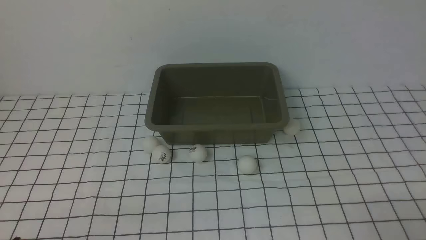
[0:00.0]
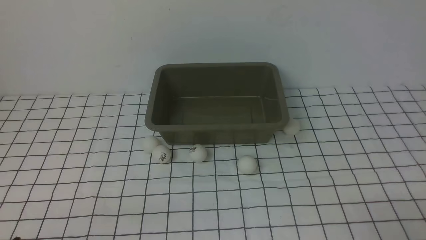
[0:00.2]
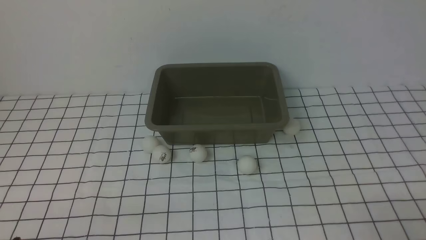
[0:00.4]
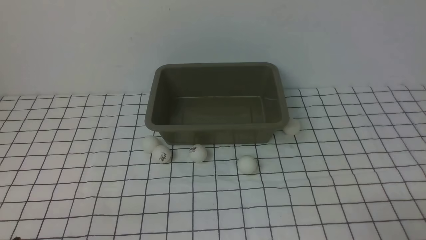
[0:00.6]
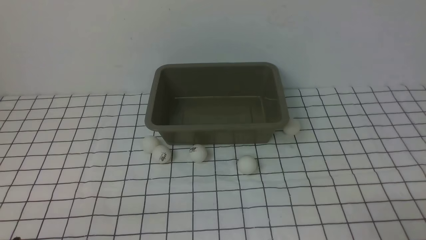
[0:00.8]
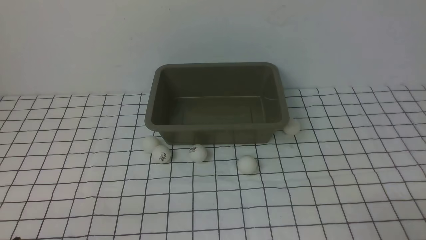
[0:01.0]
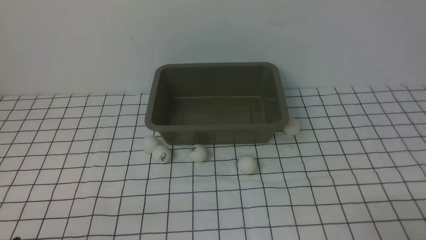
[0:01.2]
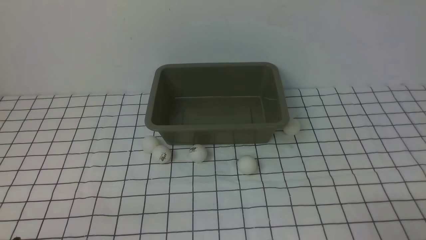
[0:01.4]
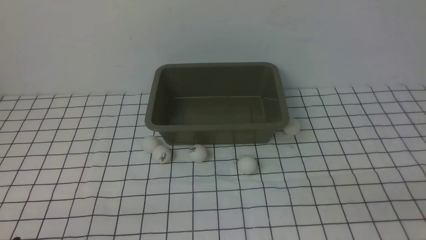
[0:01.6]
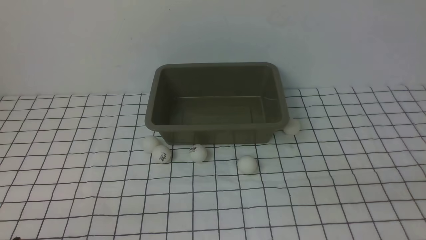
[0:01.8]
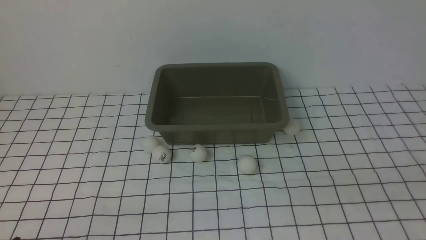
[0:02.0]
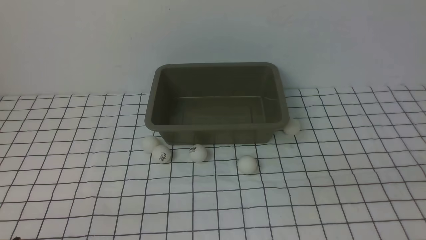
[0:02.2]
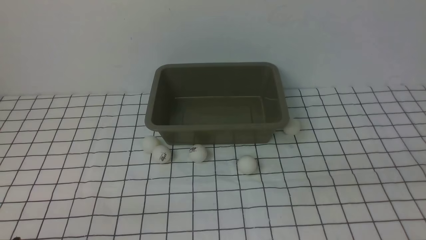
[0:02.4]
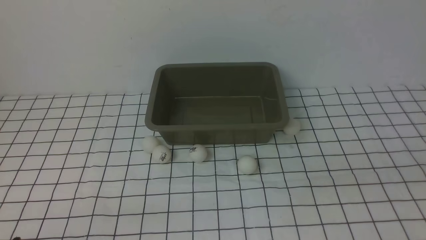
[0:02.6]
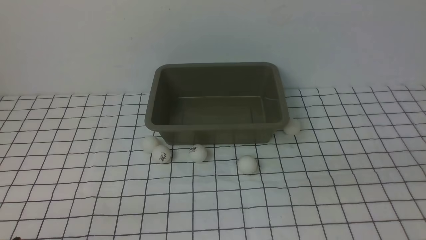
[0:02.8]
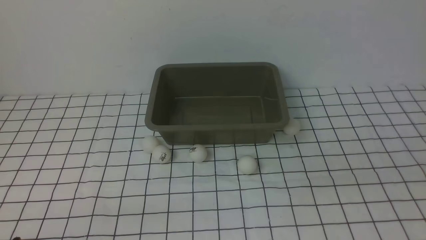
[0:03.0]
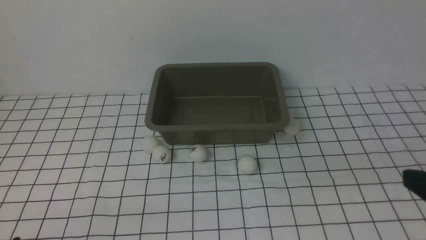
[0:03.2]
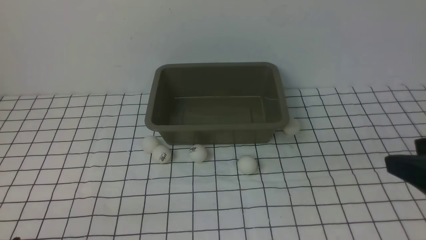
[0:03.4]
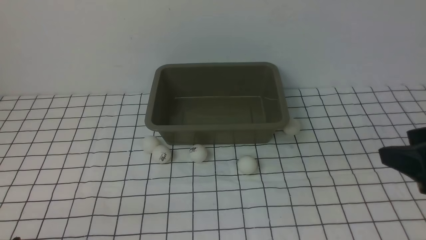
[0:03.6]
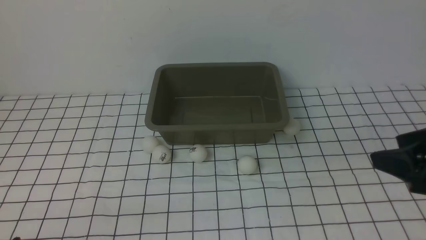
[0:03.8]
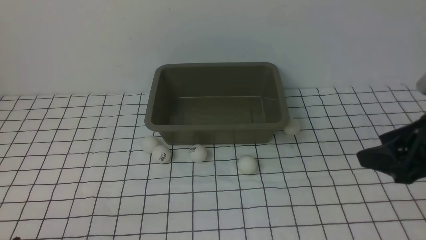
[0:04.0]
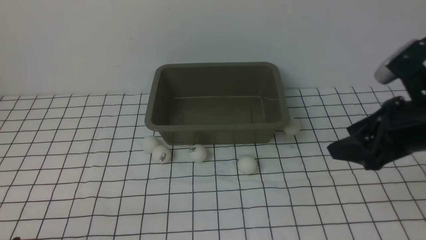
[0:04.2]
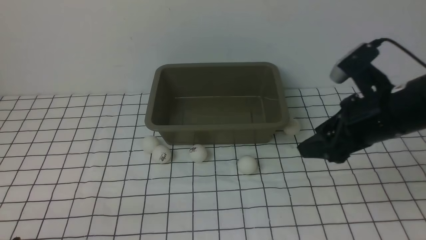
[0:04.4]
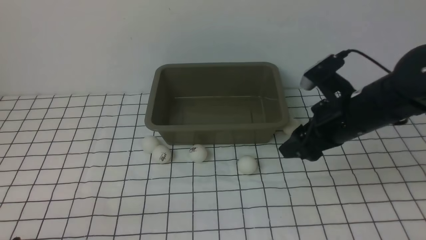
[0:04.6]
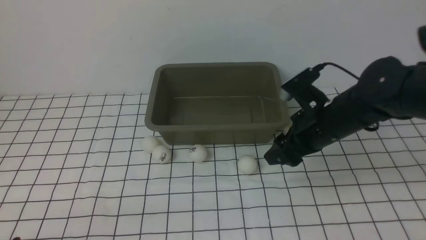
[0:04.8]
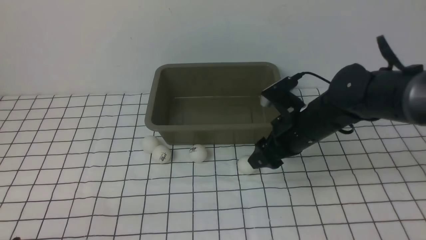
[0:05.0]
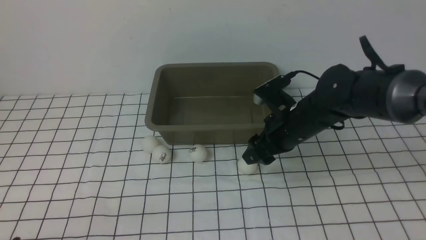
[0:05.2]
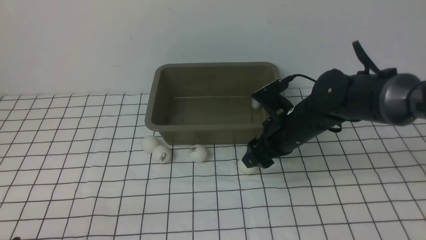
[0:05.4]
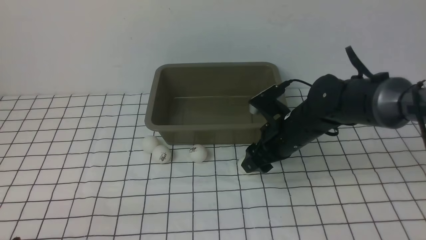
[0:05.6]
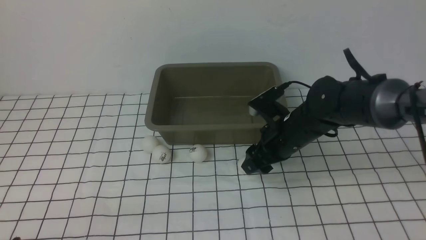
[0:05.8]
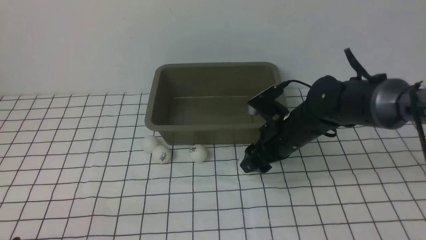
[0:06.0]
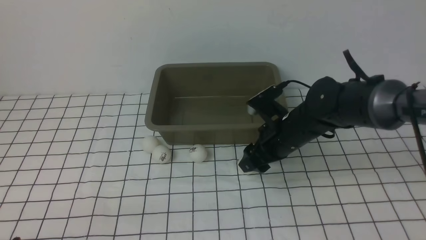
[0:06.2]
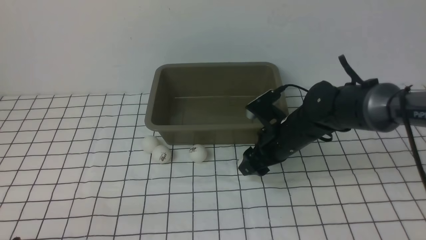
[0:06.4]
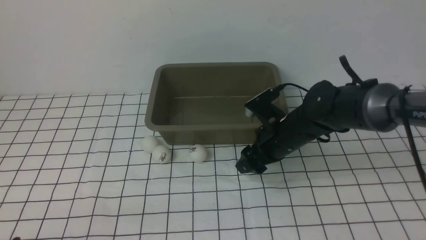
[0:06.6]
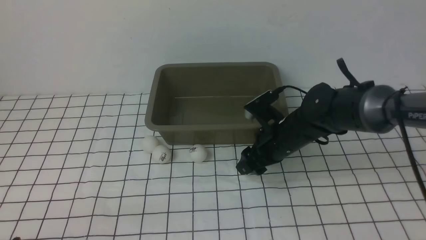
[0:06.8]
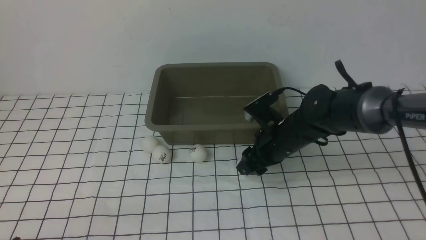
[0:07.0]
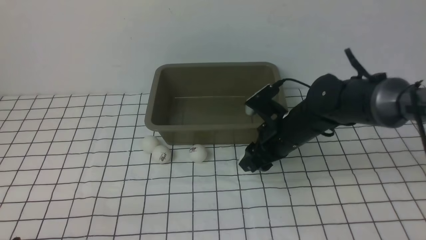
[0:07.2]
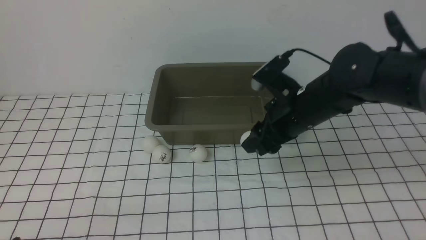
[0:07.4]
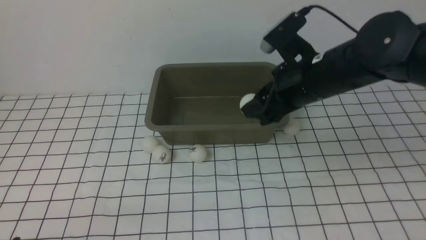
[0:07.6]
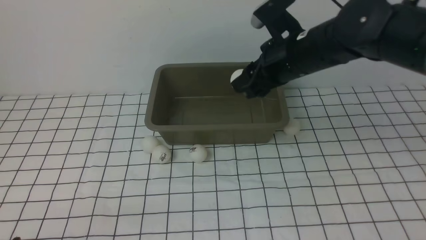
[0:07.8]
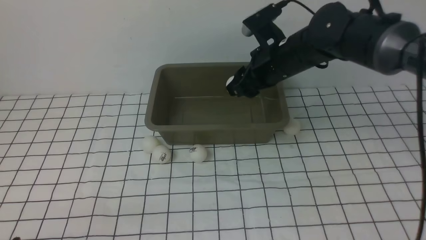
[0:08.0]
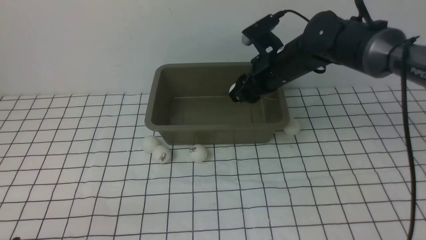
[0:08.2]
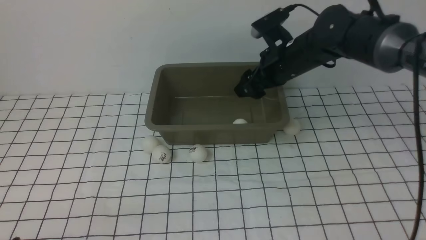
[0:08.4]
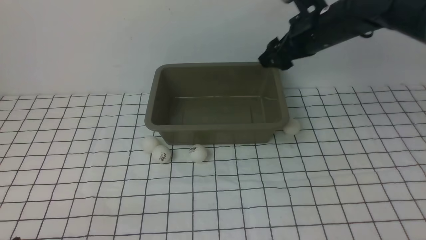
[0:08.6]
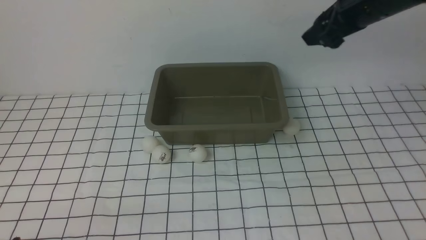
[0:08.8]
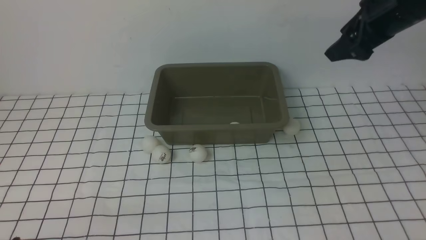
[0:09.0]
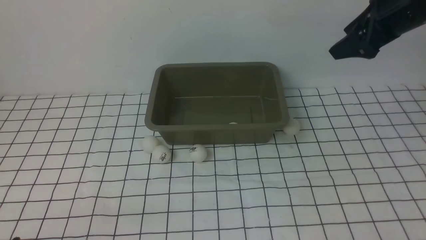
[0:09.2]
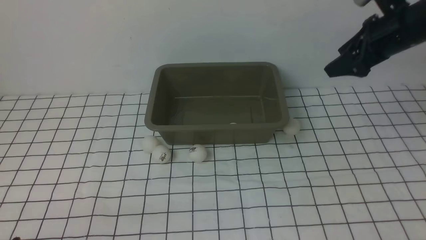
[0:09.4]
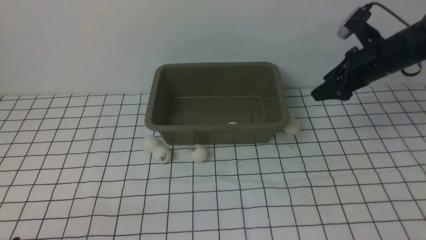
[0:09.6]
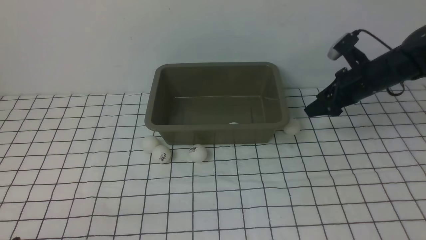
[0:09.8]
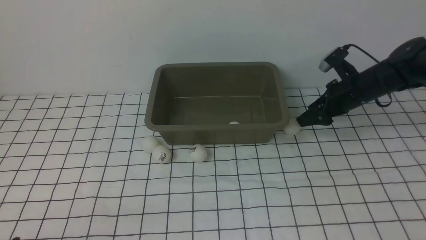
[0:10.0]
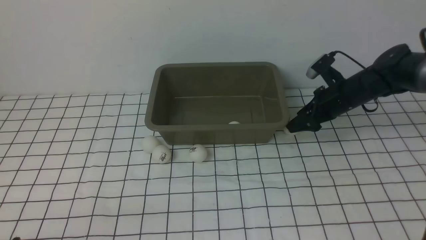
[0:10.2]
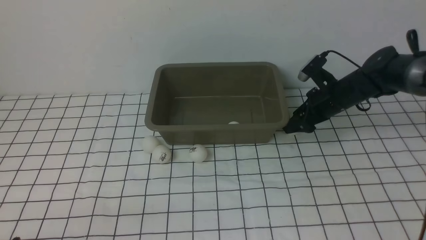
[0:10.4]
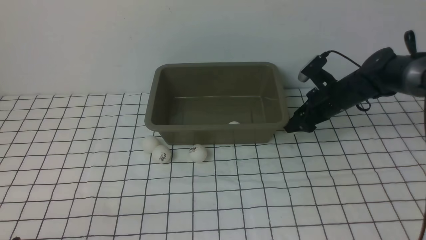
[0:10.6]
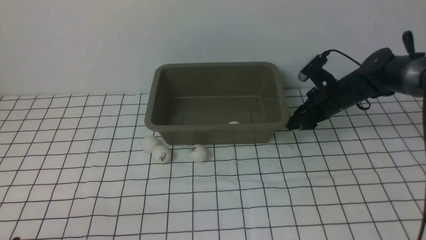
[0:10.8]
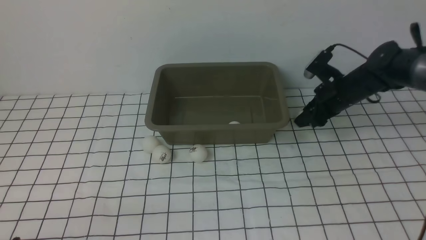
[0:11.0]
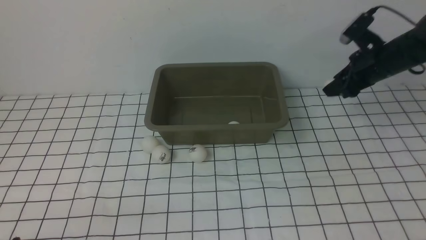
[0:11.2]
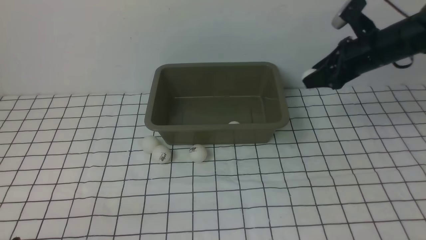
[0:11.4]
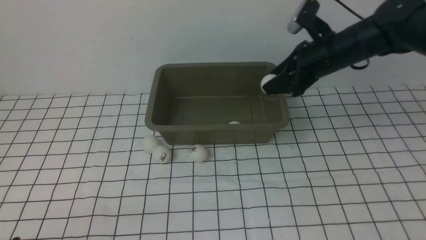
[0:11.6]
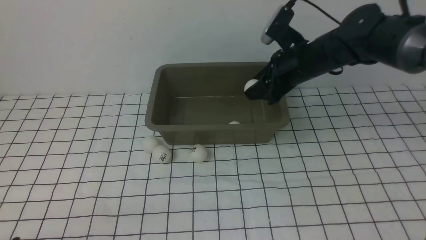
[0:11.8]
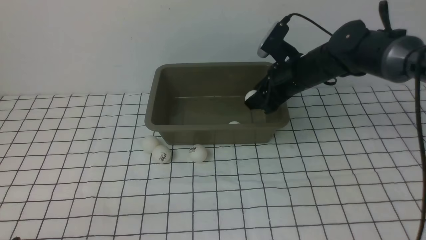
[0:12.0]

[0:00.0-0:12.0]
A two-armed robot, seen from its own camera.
Step, 0:00.0 to 0:07.2: use the right arm to clamp the table tennis ball closest to it.
Step, 0:07.4 to 0:08.4: use the right arm to put the table tennis ball into the box.
Step, 0:08.6 to 0:11.0: use the right arm to clamp the table tennis ball closest to it.
0:03.0 to 0:04.4: The right gripper is displaced forward by roughly 25 cm.
0:04.4 to 0:06.0: The right gripper heads downward, to the left and forward, covering about 15 cm.
0:06.0 to 0:07.6: The right gripper heads upward, covering some 15 cm, and closes up.
0:07.6 to 0:09.0: The right gripper is displaced to the right, upward and forward by some 15 cm, and opens up.
0:09.0 to 0:10.4: The right gripper goes approximately 20 cm downward.
0:10.4 to 0:12.0: The right gripper shifts about 10 cm upward, and closes, then opens again.

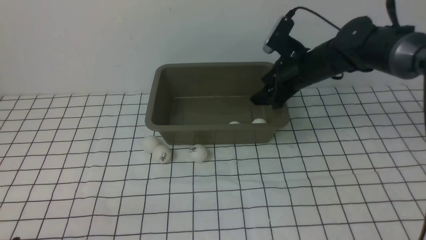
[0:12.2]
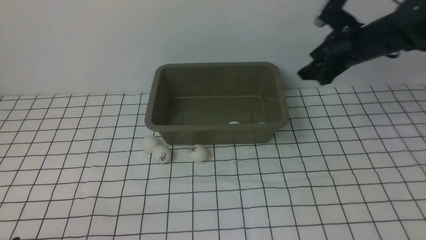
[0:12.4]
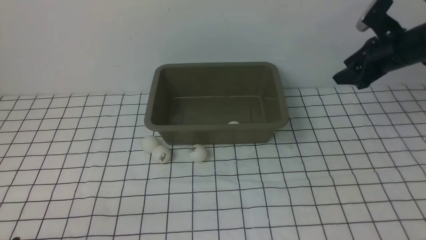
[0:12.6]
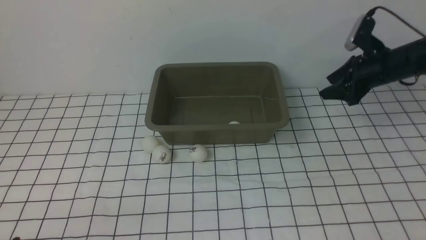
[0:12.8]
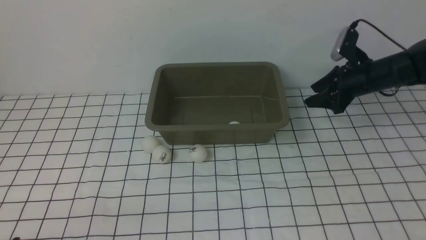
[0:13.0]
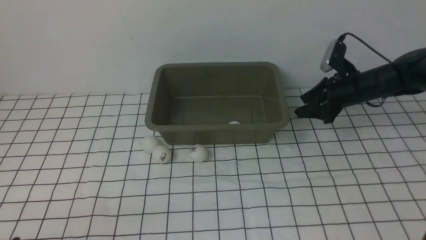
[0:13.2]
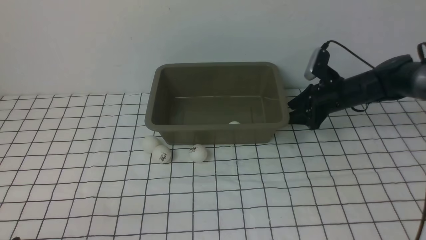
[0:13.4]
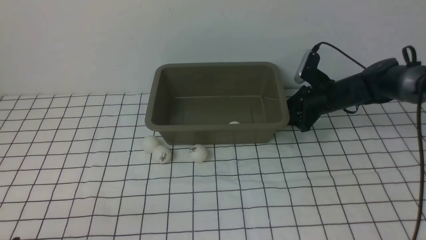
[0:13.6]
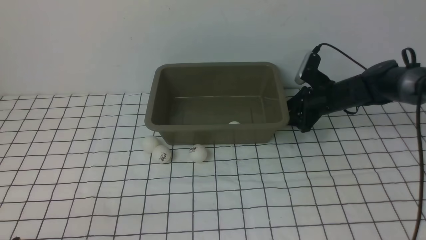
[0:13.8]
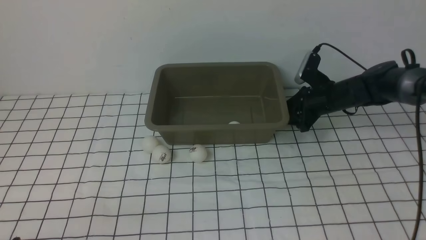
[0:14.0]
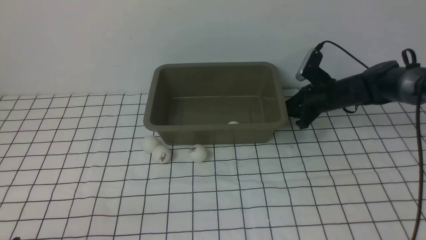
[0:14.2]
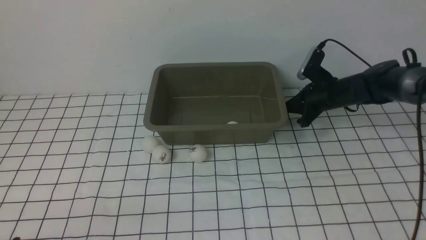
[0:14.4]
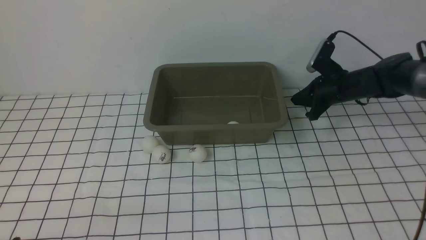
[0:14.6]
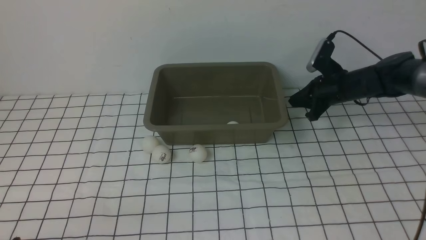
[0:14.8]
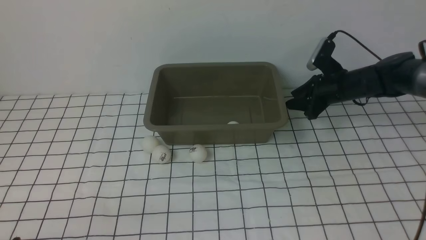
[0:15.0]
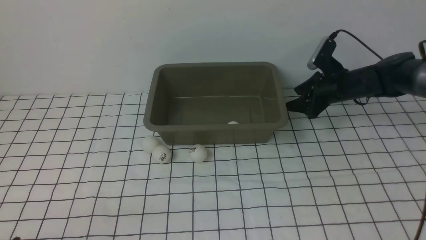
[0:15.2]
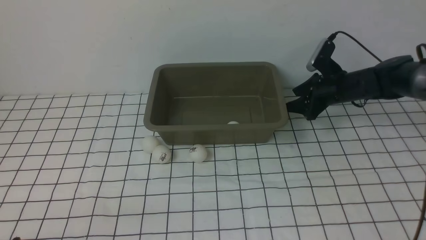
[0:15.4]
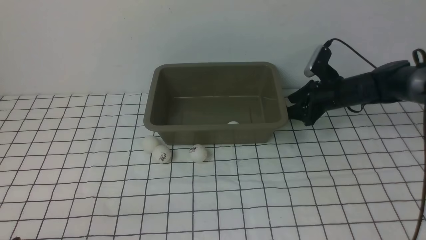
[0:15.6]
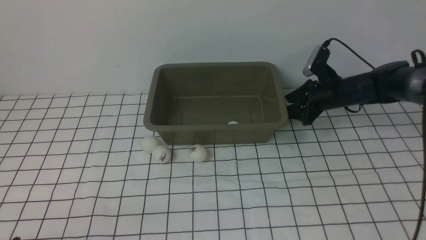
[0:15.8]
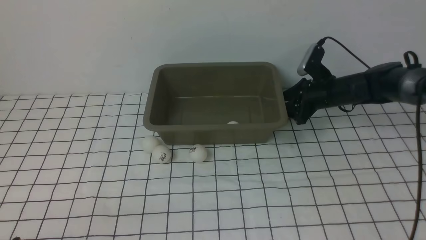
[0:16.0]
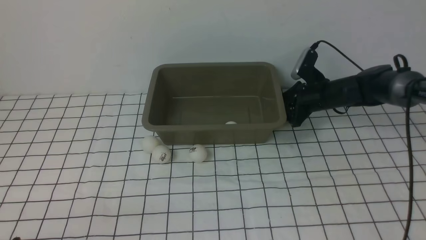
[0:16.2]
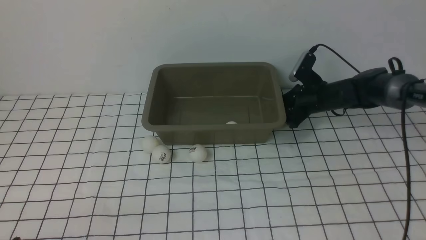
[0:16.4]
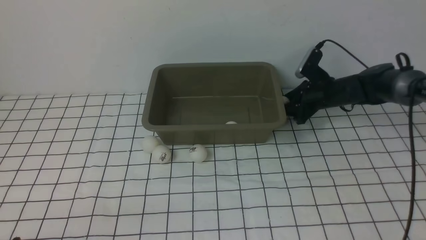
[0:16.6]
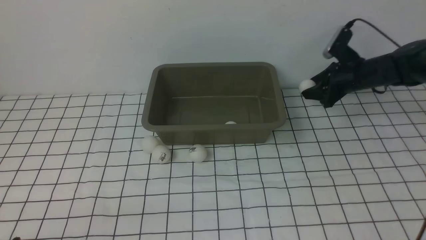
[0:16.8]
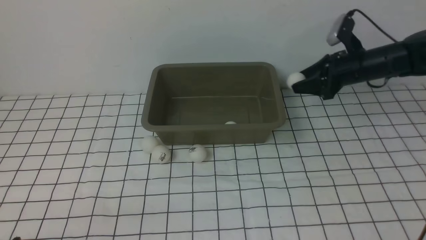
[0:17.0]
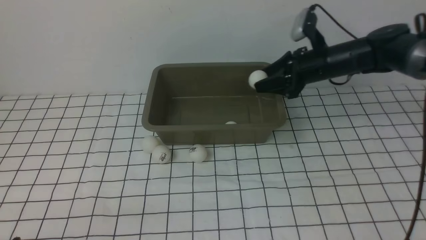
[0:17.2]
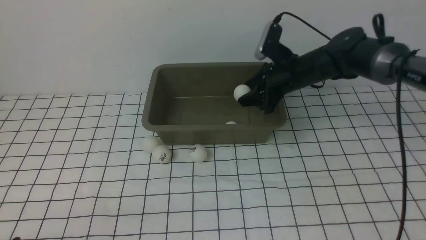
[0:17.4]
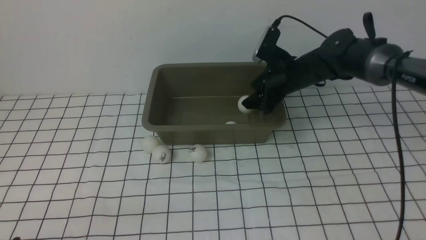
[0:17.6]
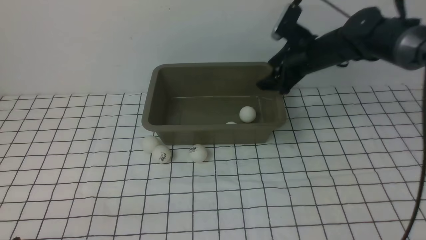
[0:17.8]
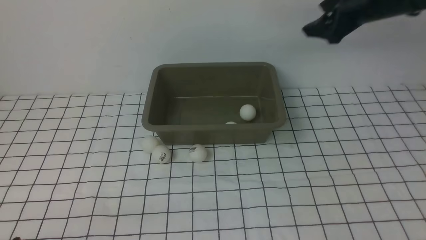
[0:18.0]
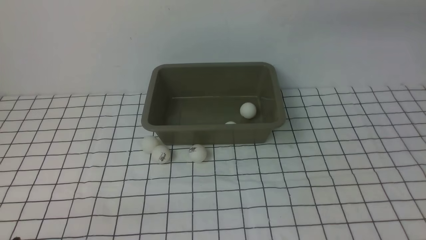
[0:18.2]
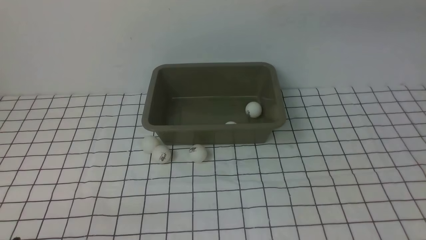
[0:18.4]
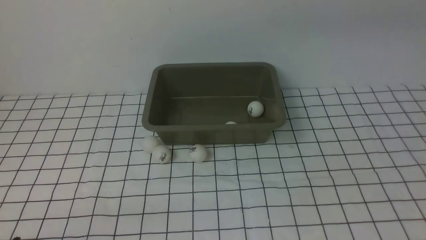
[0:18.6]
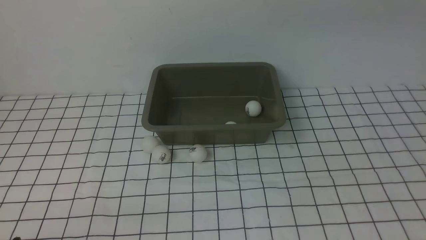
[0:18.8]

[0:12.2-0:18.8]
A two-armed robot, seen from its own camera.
Step, 0:12.4 to 0:16.8: use the right arm to clamp the table tennis ball closest to it.
Step, 0:17.0 to 0:17.6: use the right arm to put the table tennis ball into the box.
0:12.2 to 0:13.8: The right gripper is displaced downward by roughly 10 cm, and closes up.
0:13.8 to 0:15.4: The right gripper opens up.
0:15.4 to 0:17.2: The right gripper travels upward by about 15 cm, and opens up.
0:17.2 to 0:18.8: The right gripper moves upward and backward, some 30 cm.
